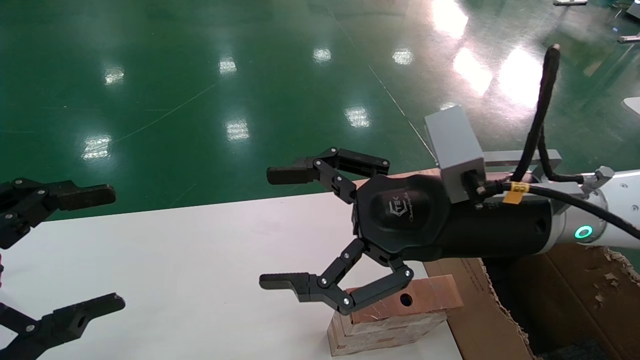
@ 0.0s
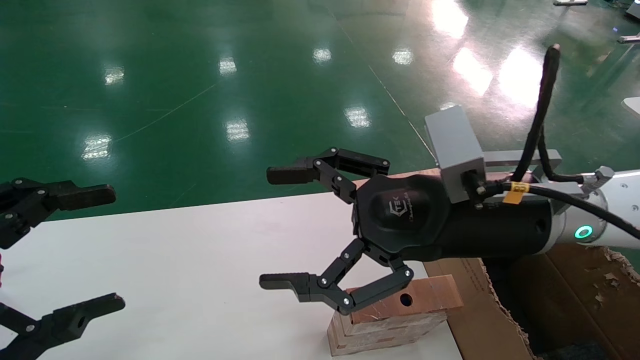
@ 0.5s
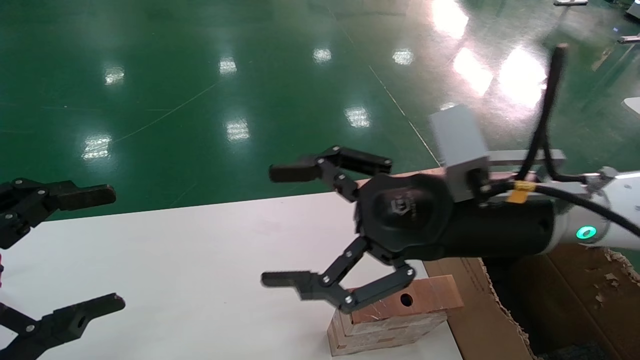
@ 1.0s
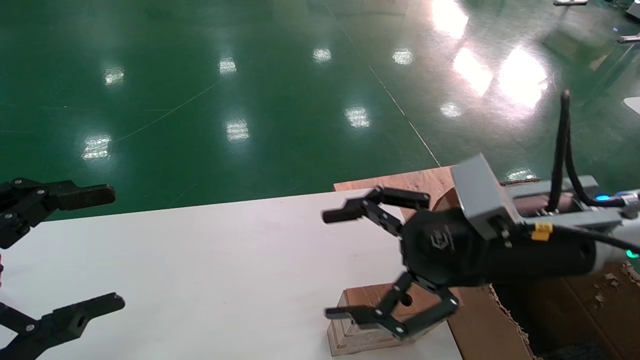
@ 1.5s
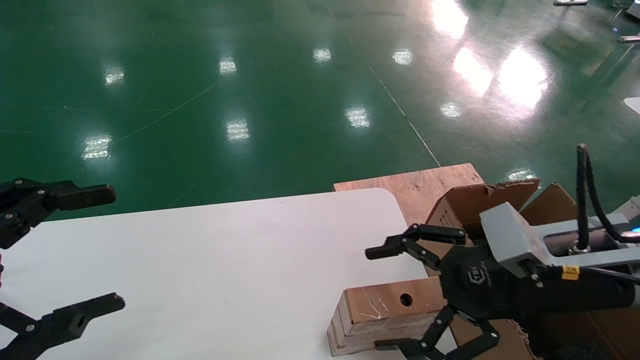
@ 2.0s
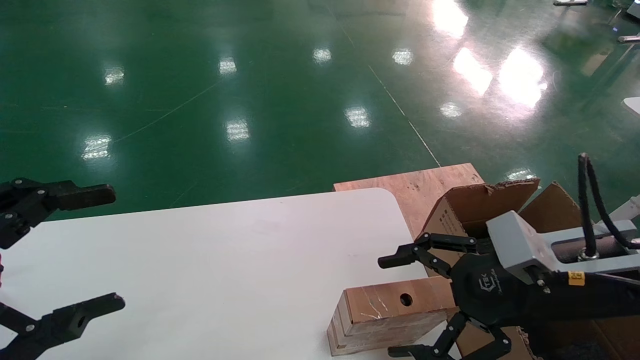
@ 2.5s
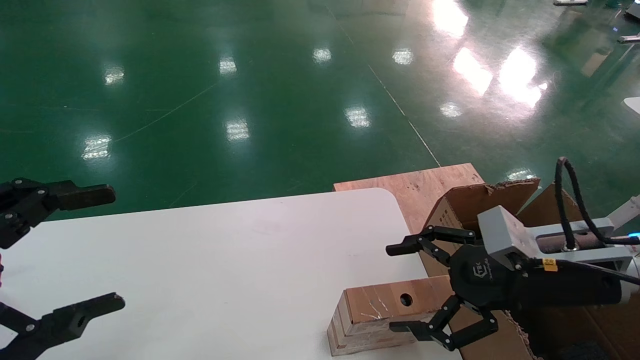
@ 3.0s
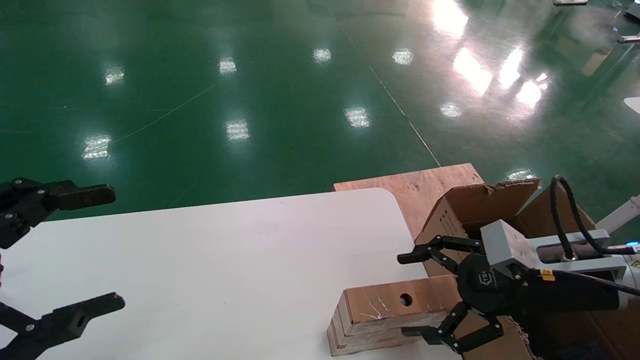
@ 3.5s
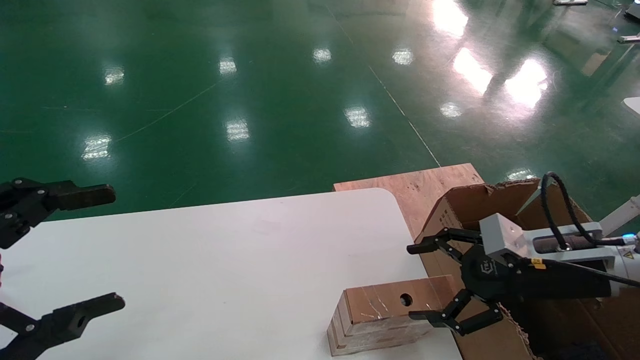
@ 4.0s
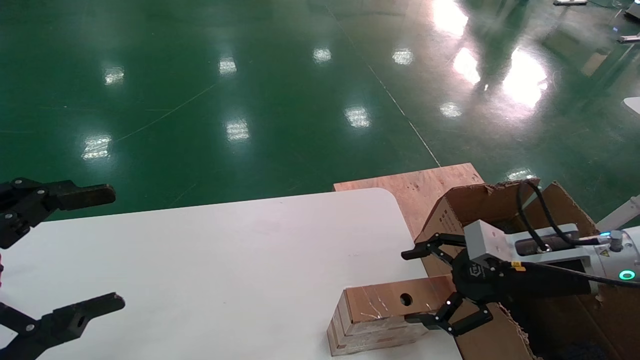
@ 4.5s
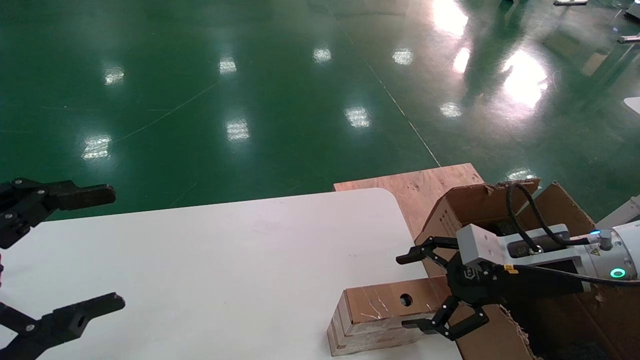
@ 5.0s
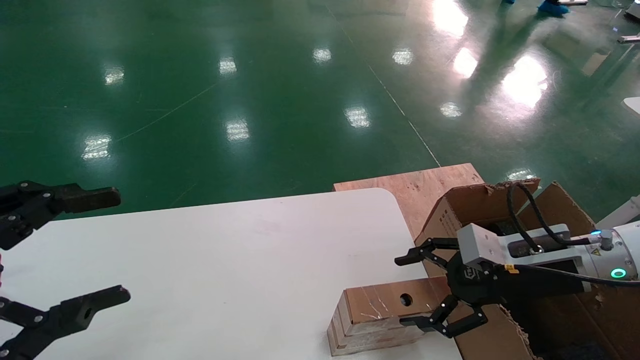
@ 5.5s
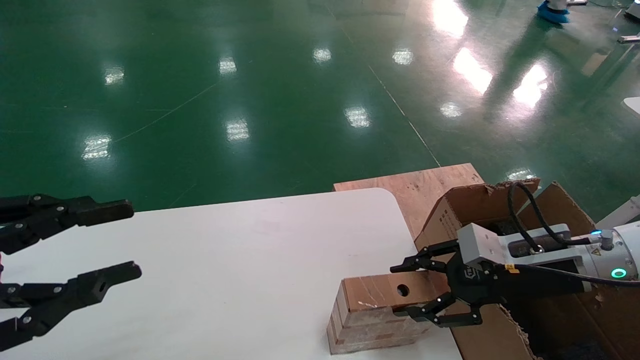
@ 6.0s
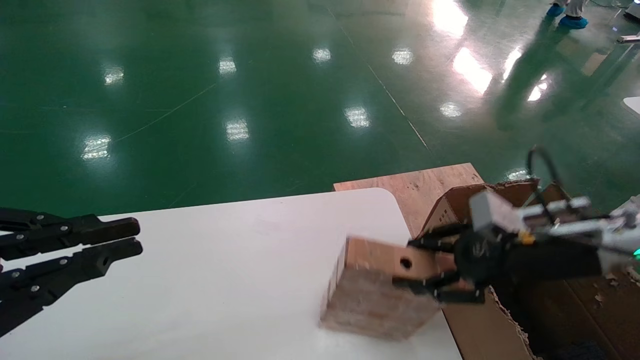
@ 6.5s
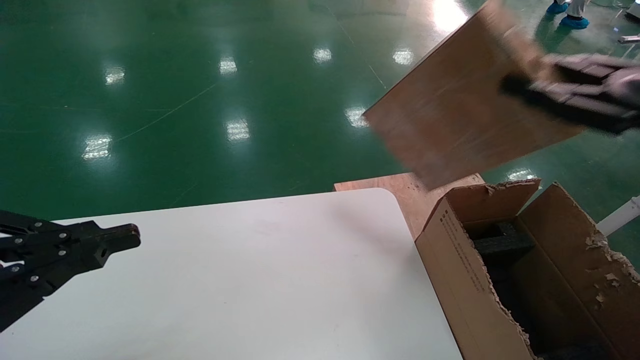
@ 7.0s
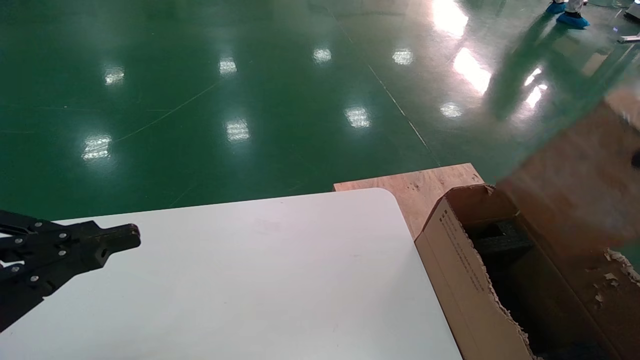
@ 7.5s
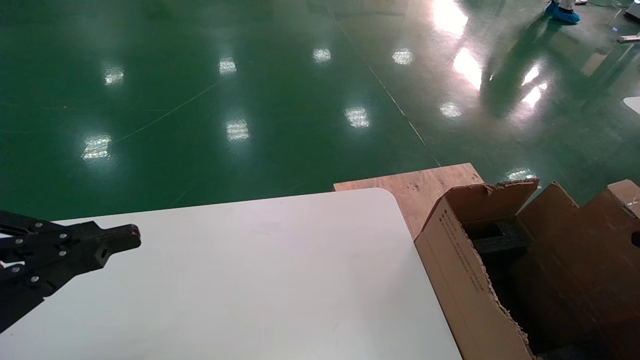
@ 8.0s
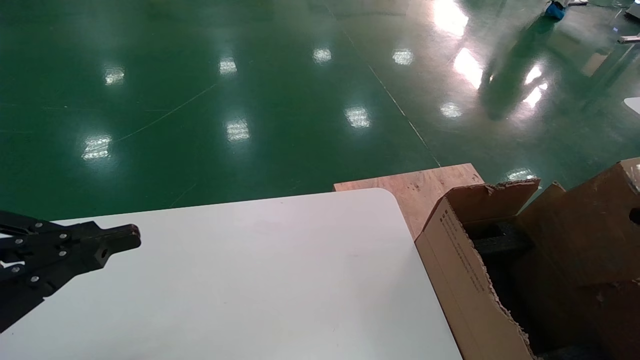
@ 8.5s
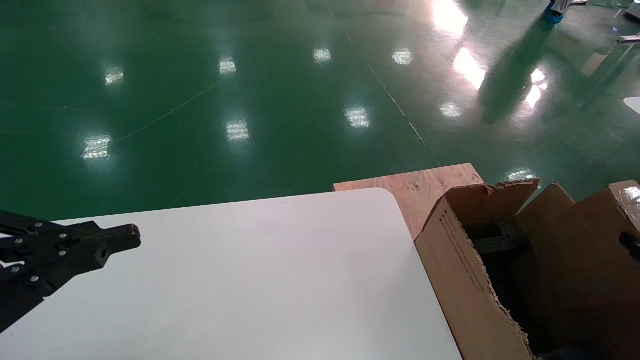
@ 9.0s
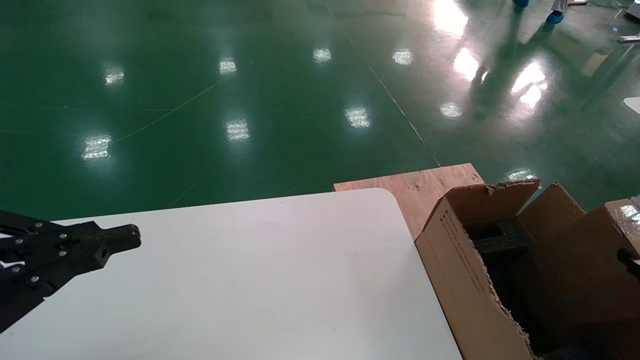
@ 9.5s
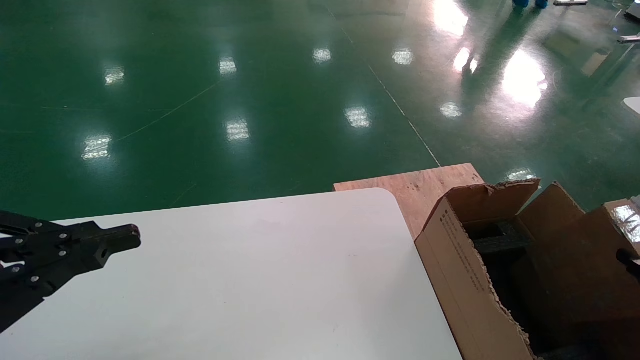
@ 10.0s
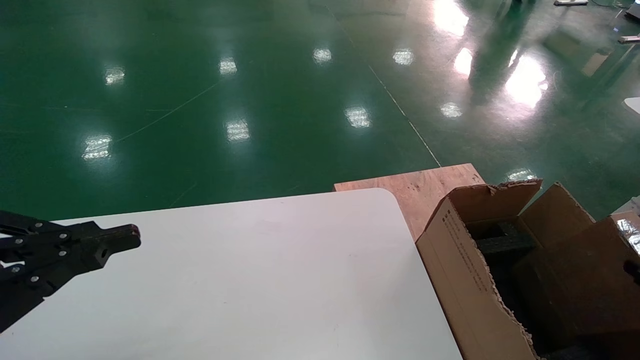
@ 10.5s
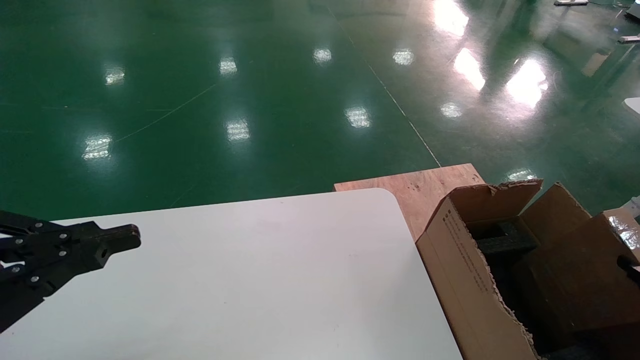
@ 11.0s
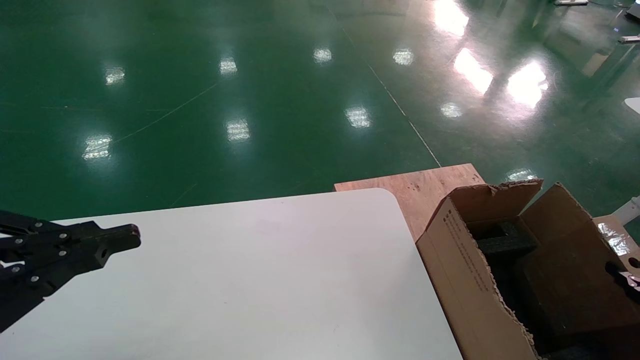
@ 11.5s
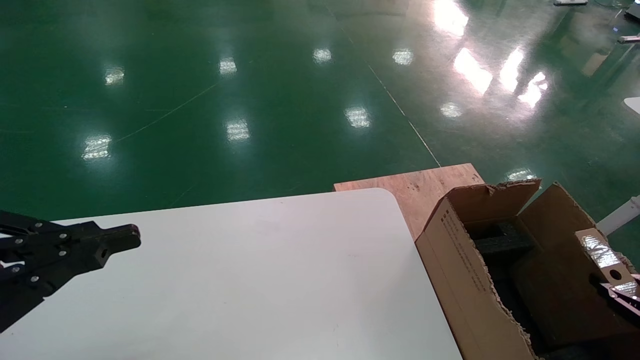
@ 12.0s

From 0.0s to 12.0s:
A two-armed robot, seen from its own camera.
Task of the whole recording: put the box on the table into the big box.
Step, from 1.5s to 6.0s: Pick up the mouse and the power cord paper box.
From 0.0s to 2.0s: The right gripper goes some 10 cm to the right and downward.
From 2.0s to 4.0s: The right gripper goes about 10 cm to the right and downward.
From 4.0s to 6.0s: The left gripper closes up, while the right gripper closes its fingers.
From 6.0s to 8.0s: The left gripper closes up, while the right gripper heads to the right and backward, covering some 30 cm, and closes.
From 8.0s to 10.0s: The right gripper goes approximately 10 cm downward.
From 10.0s to 12.0s: The right gripper travels downward by about 5 cm.

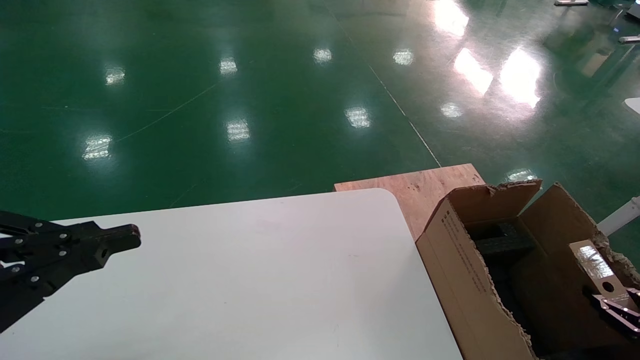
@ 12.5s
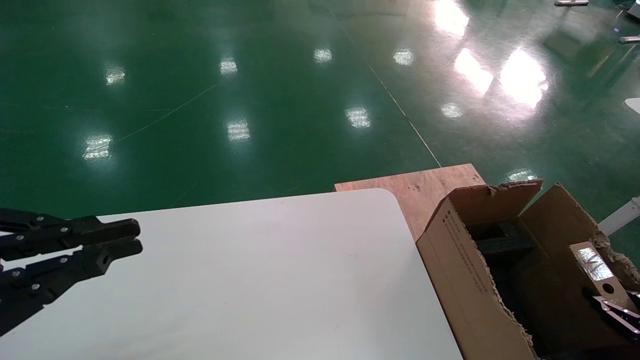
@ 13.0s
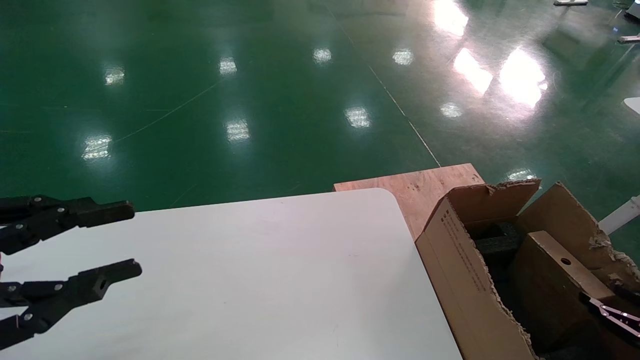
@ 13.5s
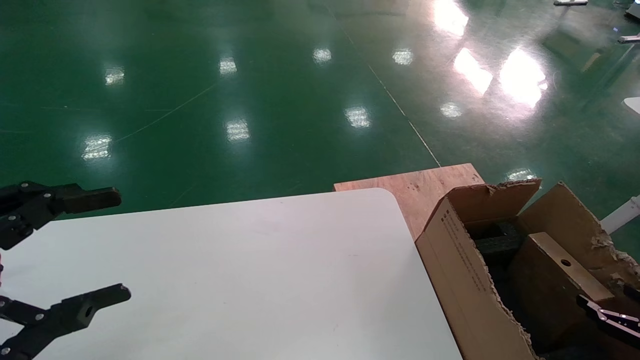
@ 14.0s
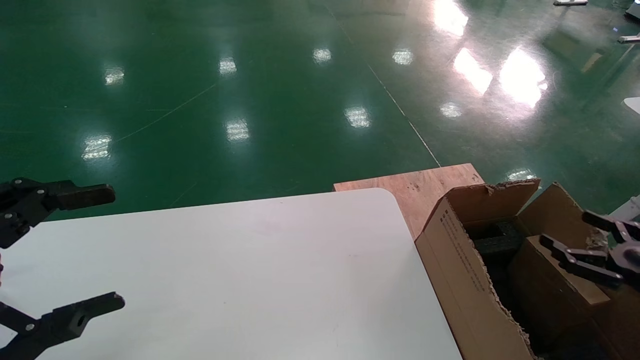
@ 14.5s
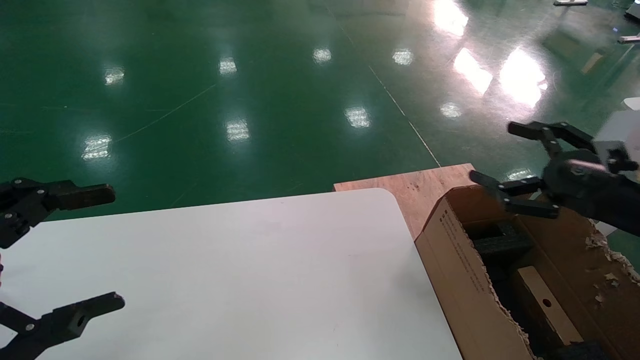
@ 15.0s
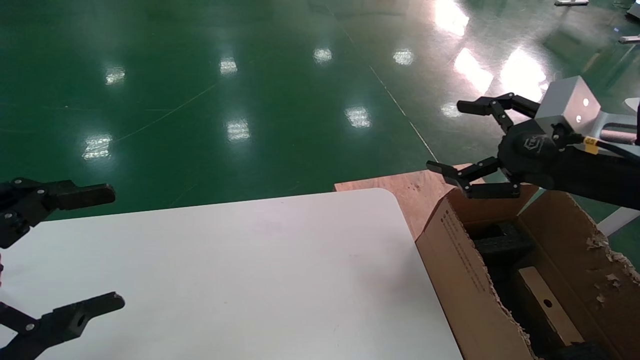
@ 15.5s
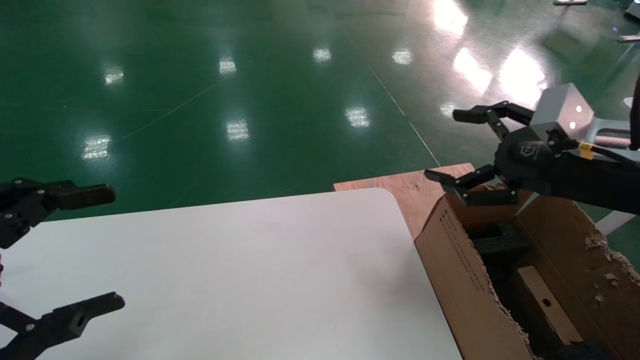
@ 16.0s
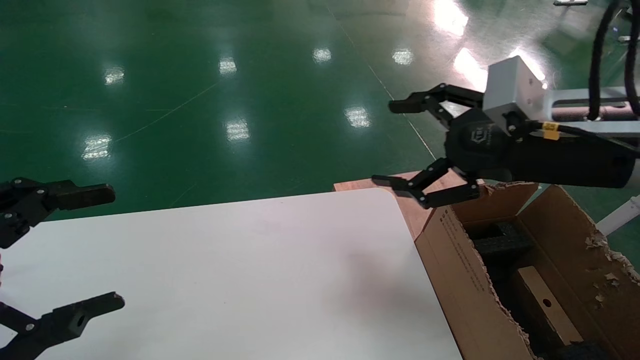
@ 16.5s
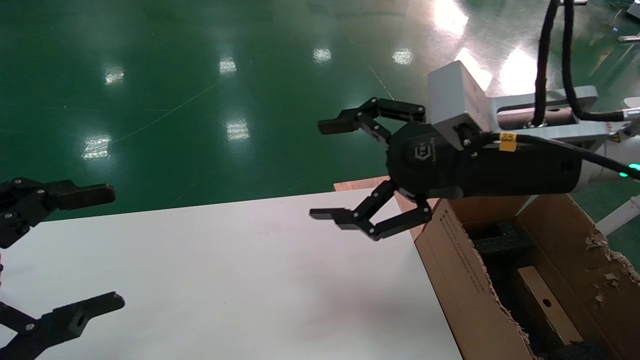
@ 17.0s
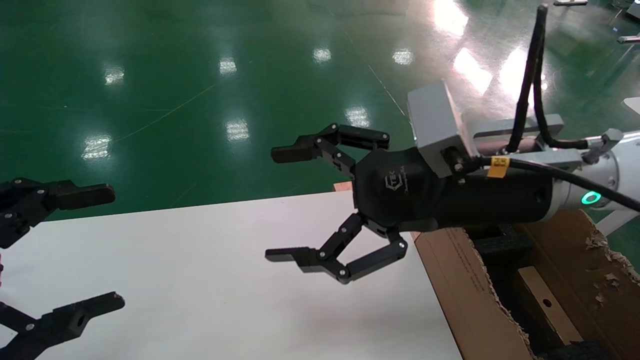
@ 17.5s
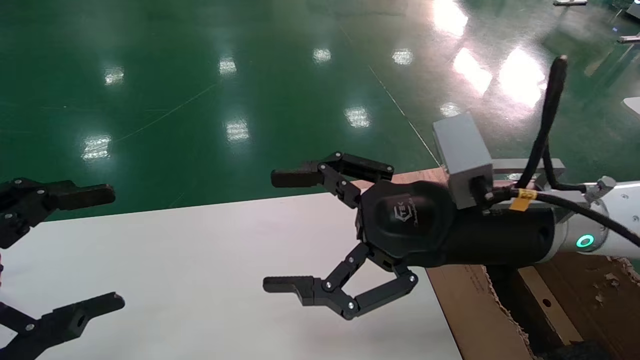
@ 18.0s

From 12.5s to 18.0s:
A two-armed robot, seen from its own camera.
Task of the whole recording: put the box on the table into the big box.
From 12.5s to 14.5s: The right gripper is displaced upward and to the left by approximately 15 cm, and opens. The left gripper opens its fingers.
From 14.5s to 16.0s: The right gripper moves upward and to the left, approximately 25 cm.
From 16.0s to 18.0s: The right gripper heads to the left, covering approximately 15 cm.
